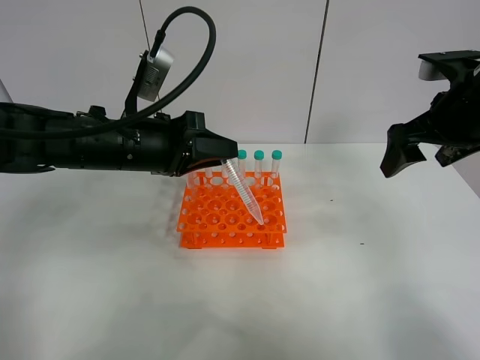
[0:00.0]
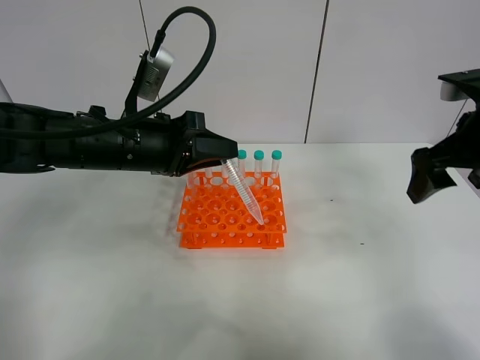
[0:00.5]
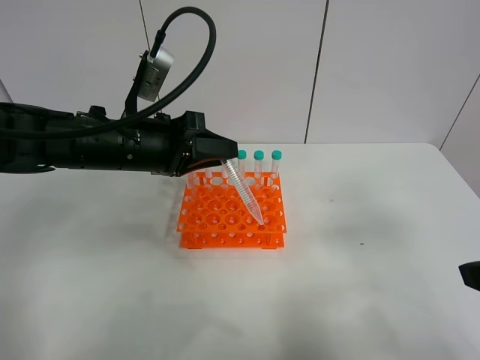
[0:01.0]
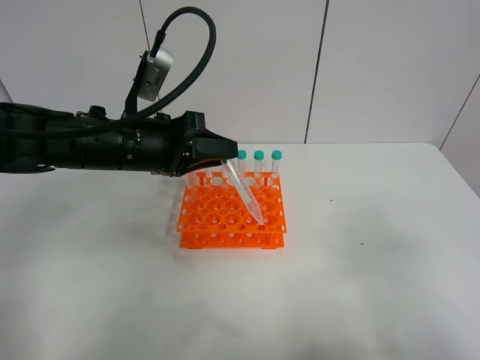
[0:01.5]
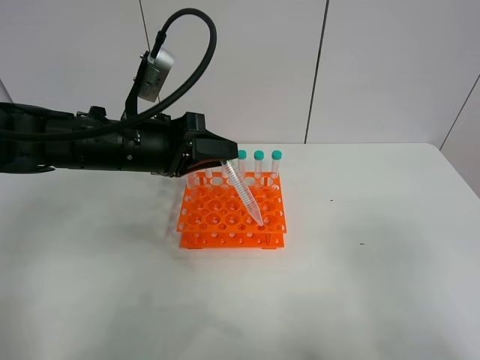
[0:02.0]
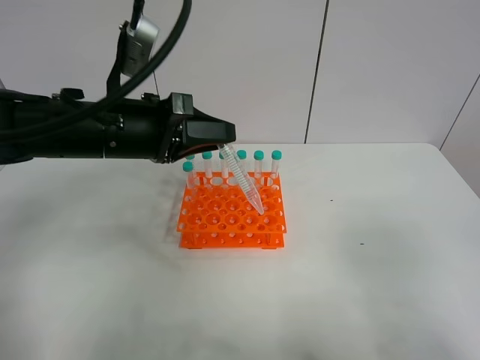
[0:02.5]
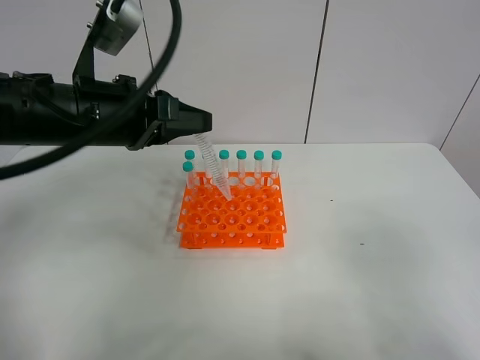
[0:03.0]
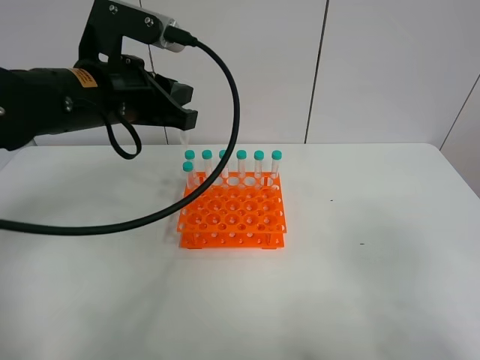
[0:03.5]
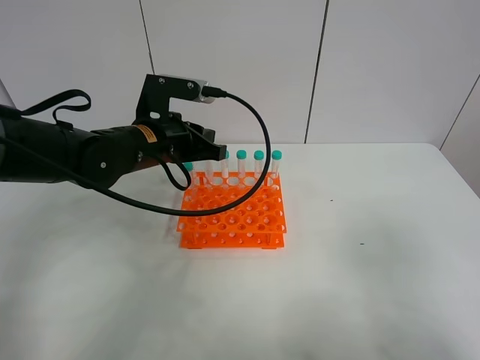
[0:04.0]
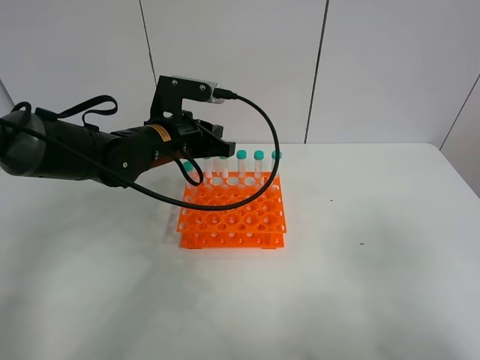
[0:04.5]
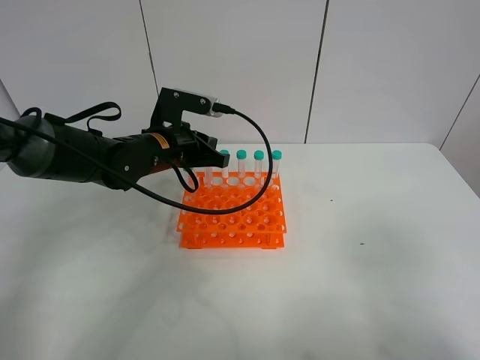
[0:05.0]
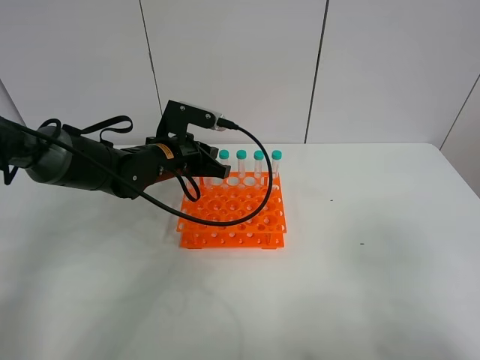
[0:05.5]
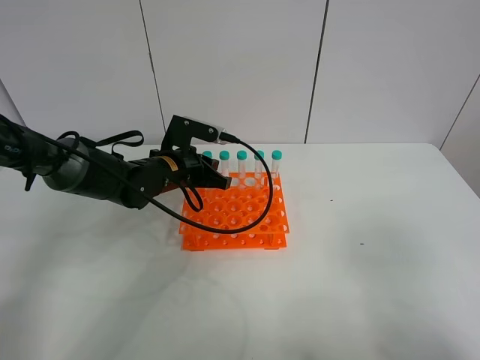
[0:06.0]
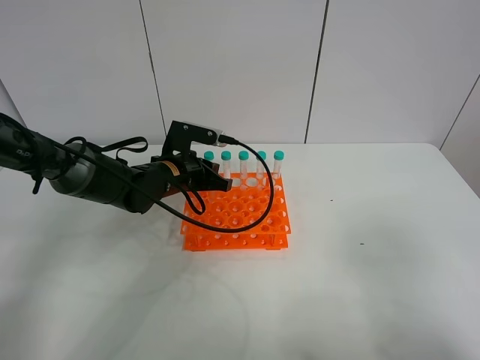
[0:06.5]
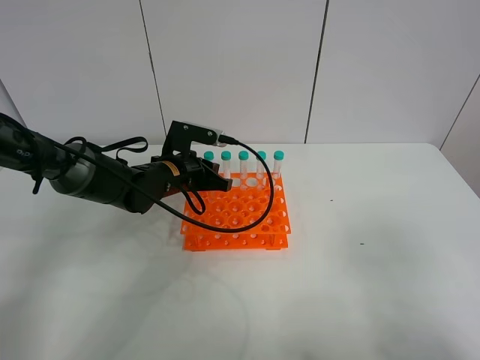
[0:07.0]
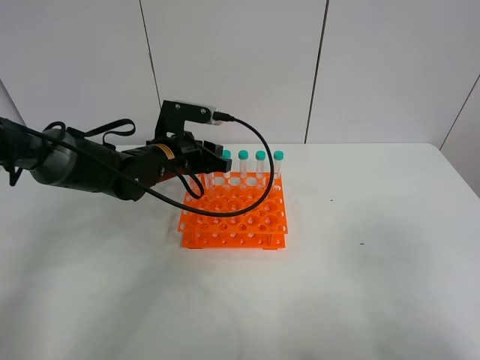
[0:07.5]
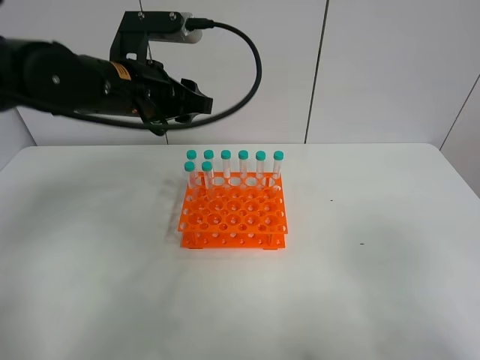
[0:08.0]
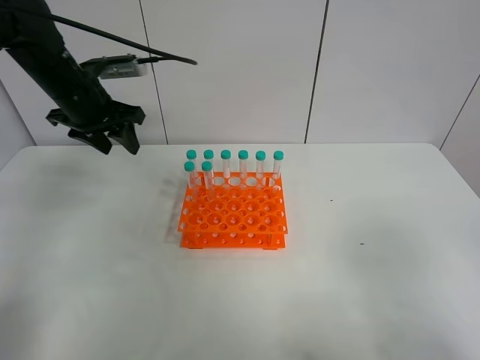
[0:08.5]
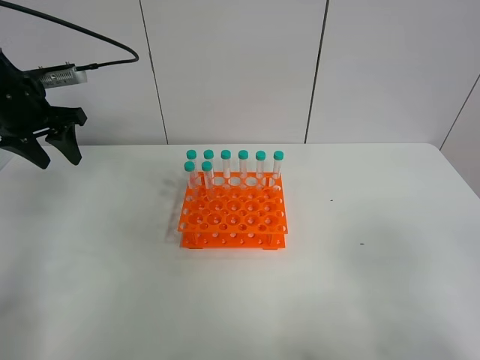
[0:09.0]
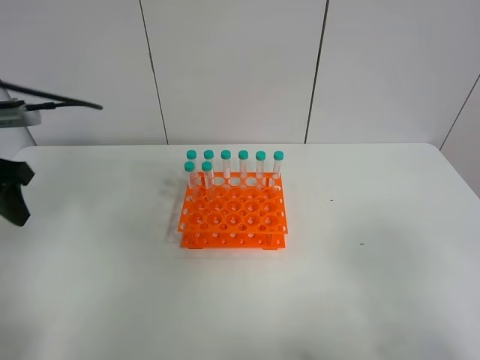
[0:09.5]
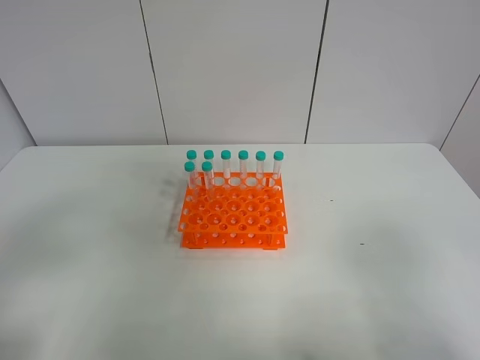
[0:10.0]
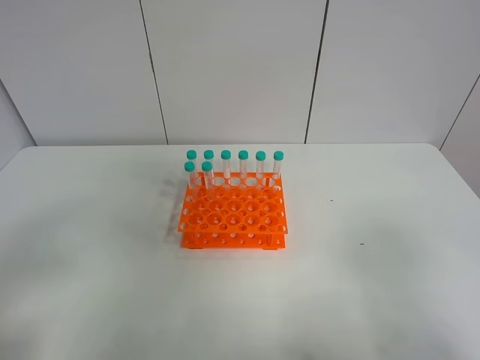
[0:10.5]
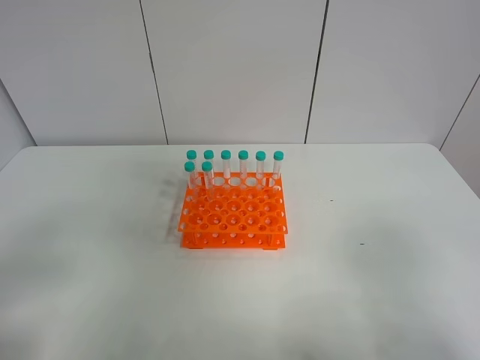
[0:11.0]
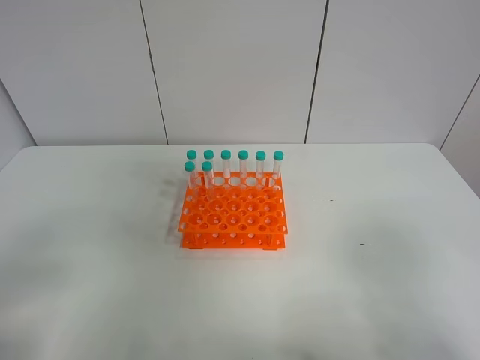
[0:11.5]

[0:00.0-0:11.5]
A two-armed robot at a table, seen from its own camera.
Task of the whole recording: Put the test tube on the table back onto the test tube rack.
Step, 0:00.0 to 0:07.0: Place the test tube on the test tube rack with the left gripper.
0:00.0 to 0:02.0: The right gripper is displaced backward by about 30 cm.
0:02.0 to 0:04.0: The left gripper reaches roughly 5 cm upward, then returns.
0:04.0 to 0:06.0: The left gripper is displaced downward by some 10 cm.
0:06.0 to 0:07.5: The left gripper opens its fingers.
0:07.5 to 0:09.5: The left gripper is displaced to the left, backward and upward by about 30 cm.
0:09.5 to 0:11.5: The left gripper shifts some 20 cm backward.
